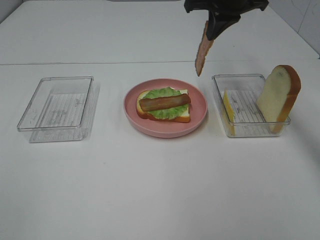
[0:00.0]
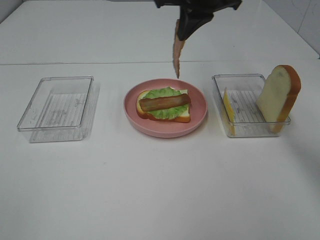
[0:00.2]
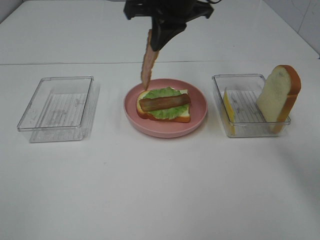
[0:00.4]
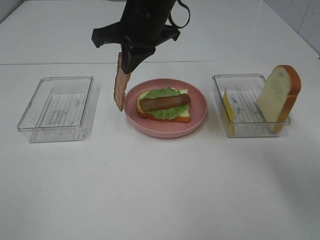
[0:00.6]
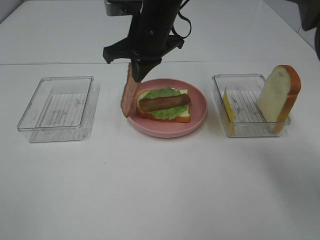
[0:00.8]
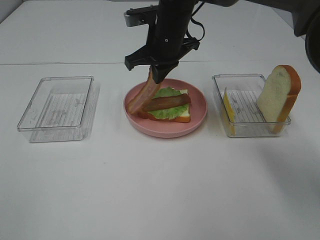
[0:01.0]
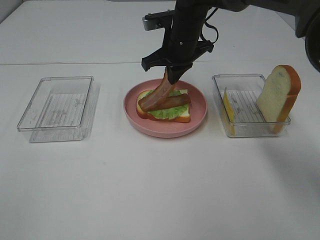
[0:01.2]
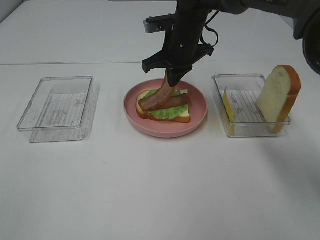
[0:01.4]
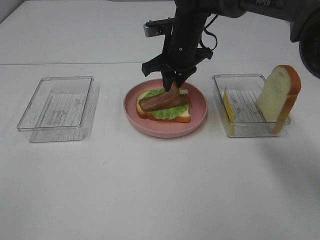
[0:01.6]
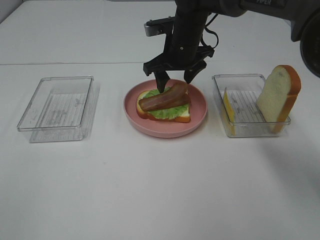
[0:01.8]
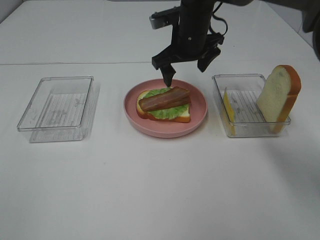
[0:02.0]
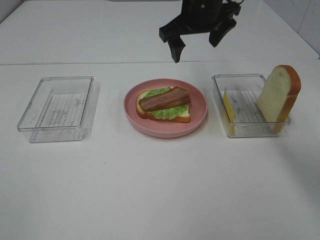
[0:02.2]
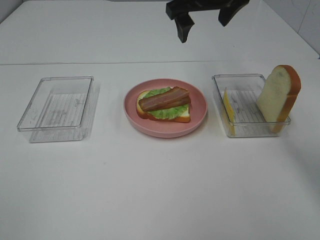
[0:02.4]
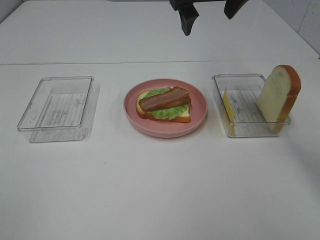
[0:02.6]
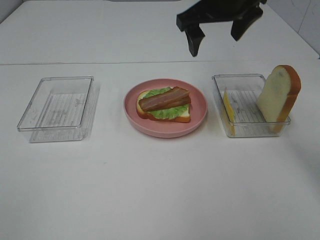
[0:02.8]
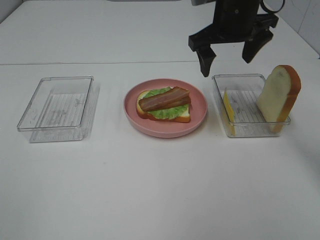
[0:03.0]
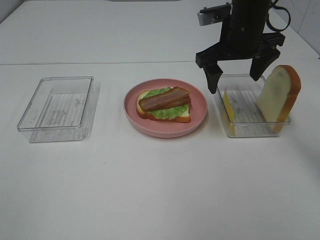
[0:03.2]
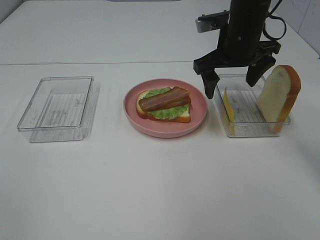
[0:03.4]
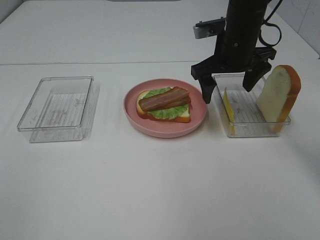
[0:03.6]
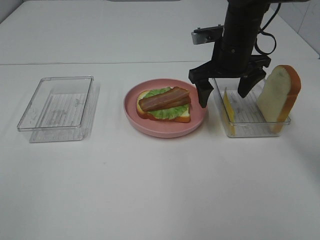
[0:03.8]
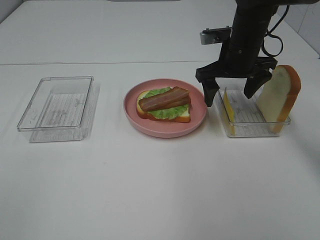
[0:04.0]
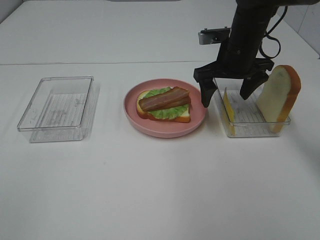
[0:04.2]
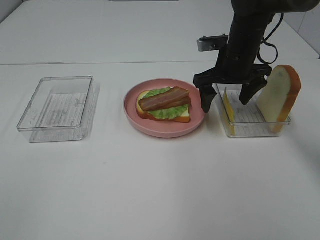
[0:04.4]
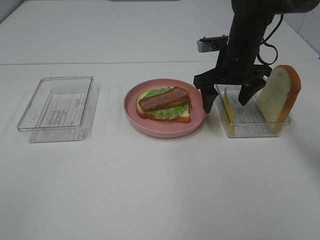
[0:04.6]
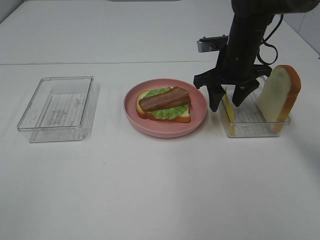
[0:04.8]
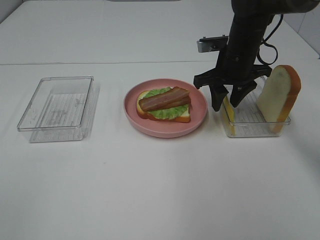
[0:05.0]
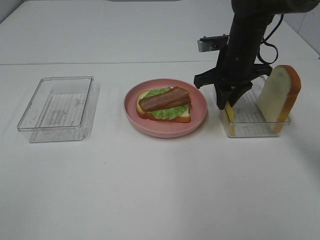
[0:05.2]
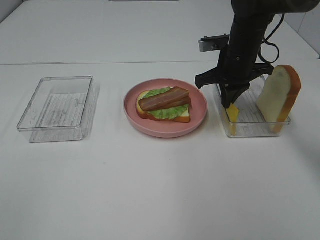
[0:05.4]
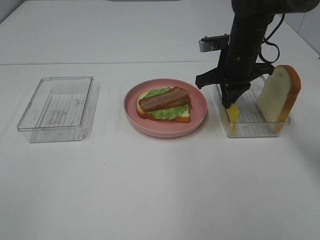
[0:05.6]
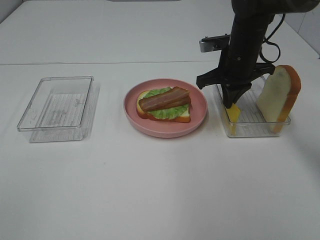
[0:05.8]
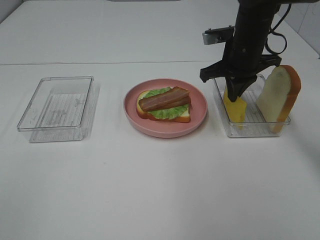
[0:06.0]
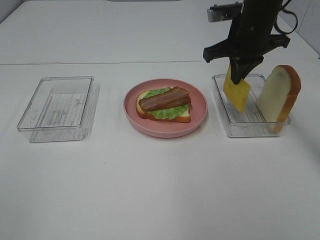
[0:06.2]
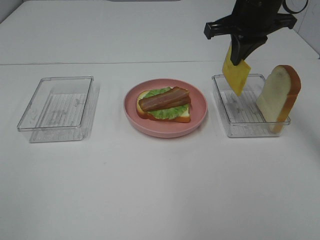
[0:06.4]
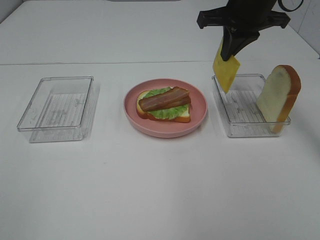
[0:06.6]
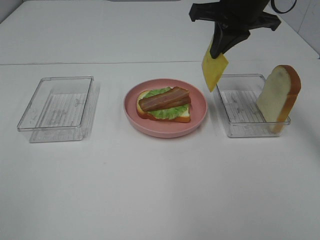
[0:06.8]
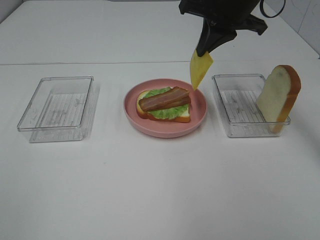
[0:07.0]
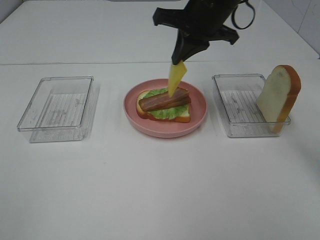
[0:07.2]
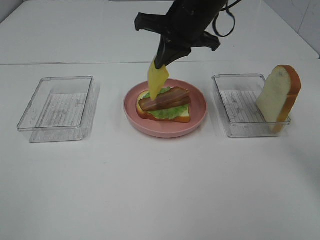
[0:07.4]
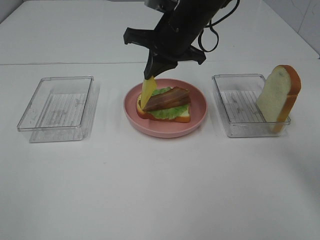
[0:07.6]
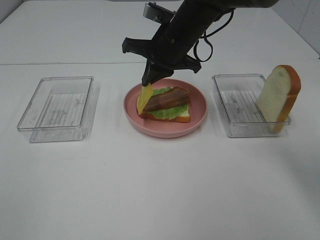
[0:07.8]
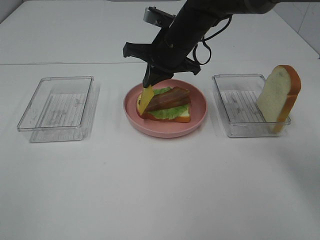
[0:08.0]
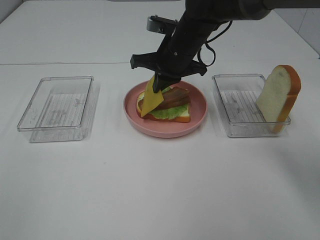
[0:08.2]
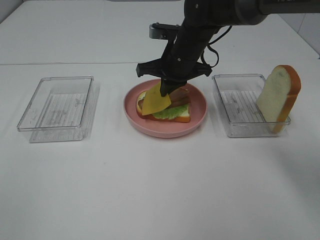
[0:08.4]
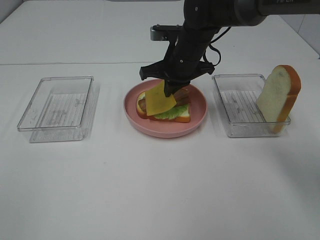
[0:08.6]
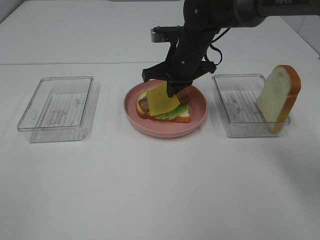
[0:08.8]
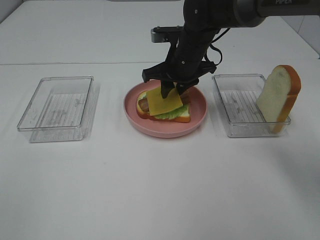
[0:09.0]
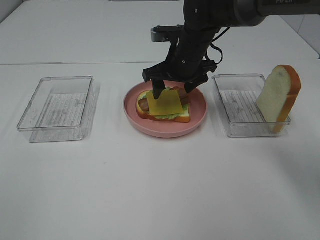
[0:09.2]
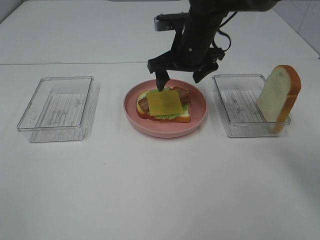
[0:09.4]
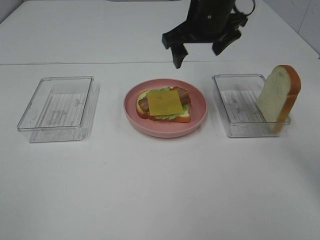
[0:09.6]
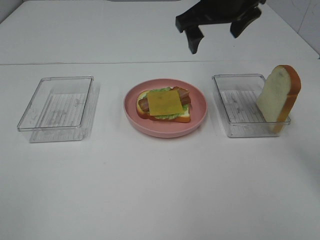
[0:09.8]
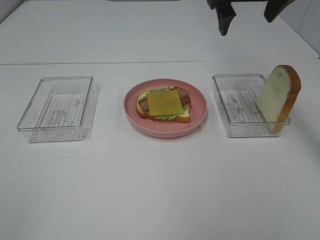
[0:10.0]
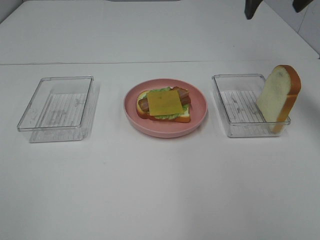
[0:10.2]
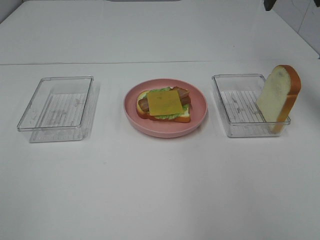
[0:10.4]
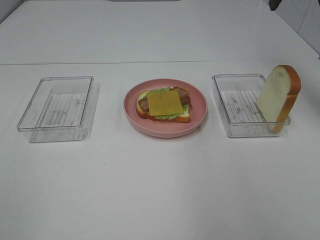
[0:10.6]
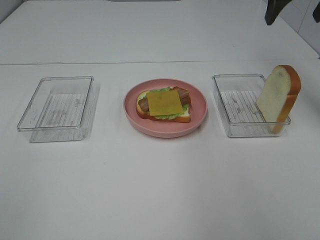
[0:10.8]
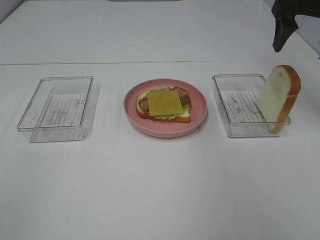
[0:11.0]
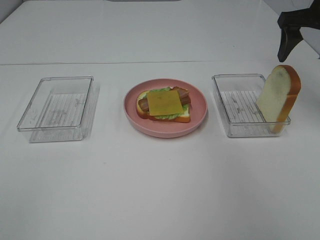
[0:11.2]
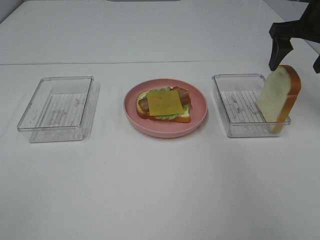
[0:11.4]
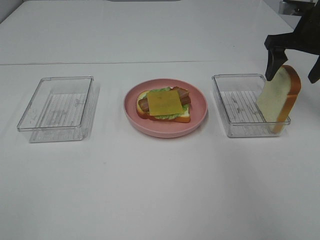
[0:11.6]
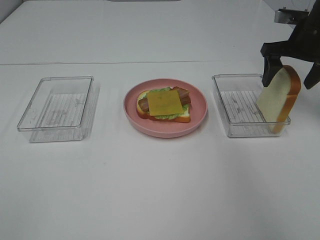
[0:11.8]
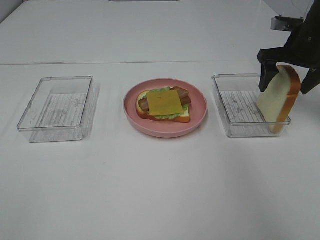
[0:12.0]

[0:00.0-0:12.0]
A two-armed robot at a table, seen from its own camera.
Task of the whole recording: Make sandwiches.
Step, 0:00.0 to 0:02.0: Right hand:place bacon on bacon.
Step, 0:02.2 to 0:05.8: Right hand:grab the cheese slice.
Step, 0:06.0 to 0:09.2: Right hand:place the cheese slice on top of the bacon.
0:00.0 to 0:01.6: The right gripper shifts roughly 15 cm downward and to the left, and opens.
0:01.6 to 0:03.0: The right gripper goes some 10 cm upward and to the right, and opens its fingers.
0:03.0 to 0:04.4: The right gripper is displaced downward by roughly 10 cm.
0:04.4 to 0:06.0: The right gripper closes up.
0:06.0 to 0:07.6: The right gripper shifts approximately 10 cm to the left.
0:07.6 to 0:09.0: The right gripper travels downward by approximately 5 cm, and opens.
0:09.0 to 0:10.4: The right gripper goes roughly 25 cm upward and to the right, and opens its fingers.
0:10.4 to 0:12.0: The right gripper heads downward, covering some 15 cm.

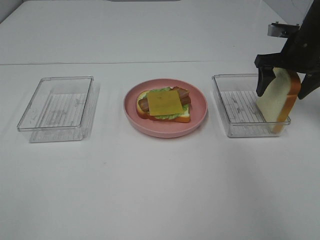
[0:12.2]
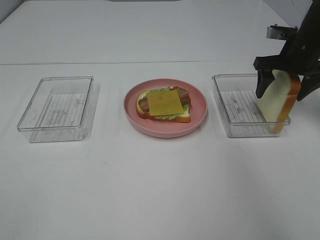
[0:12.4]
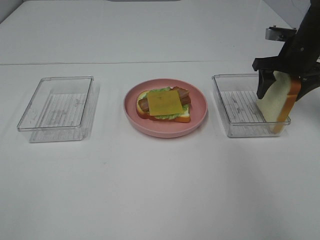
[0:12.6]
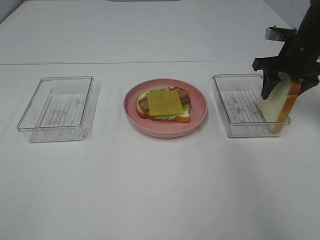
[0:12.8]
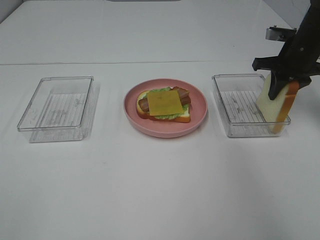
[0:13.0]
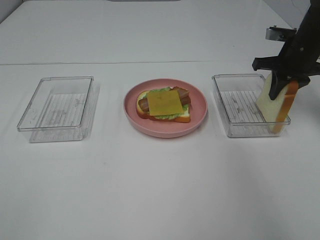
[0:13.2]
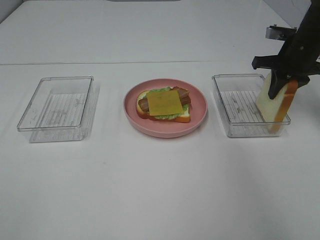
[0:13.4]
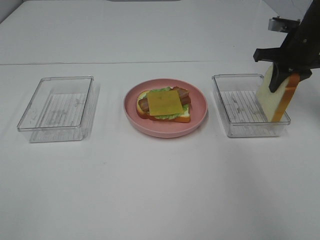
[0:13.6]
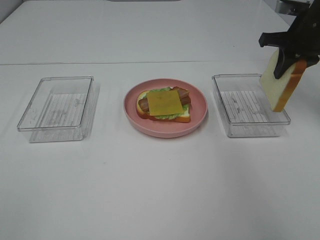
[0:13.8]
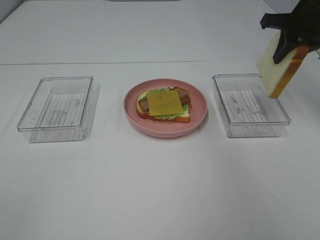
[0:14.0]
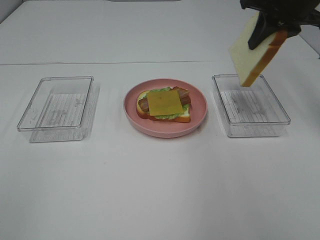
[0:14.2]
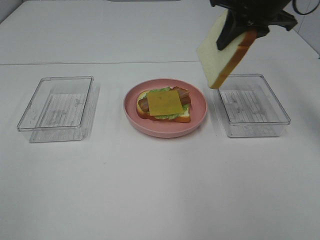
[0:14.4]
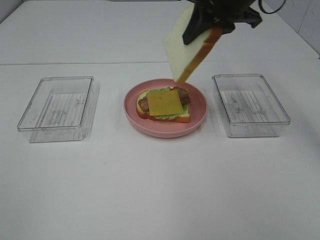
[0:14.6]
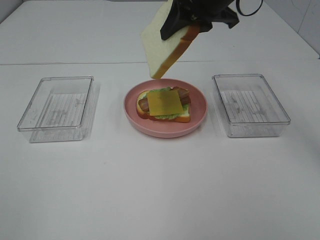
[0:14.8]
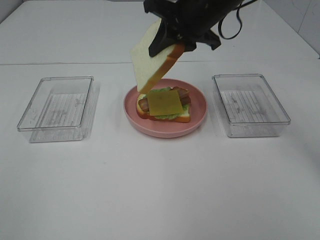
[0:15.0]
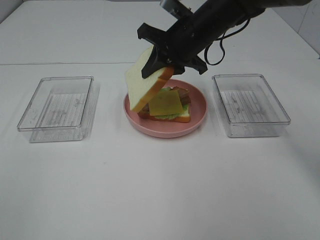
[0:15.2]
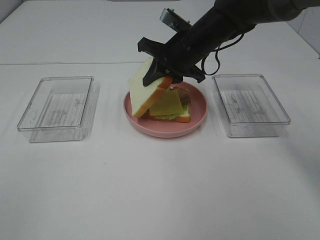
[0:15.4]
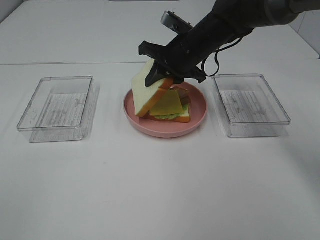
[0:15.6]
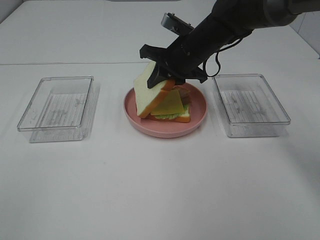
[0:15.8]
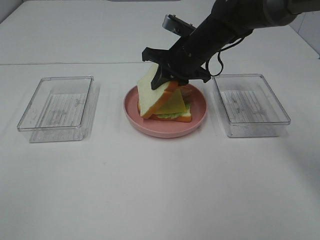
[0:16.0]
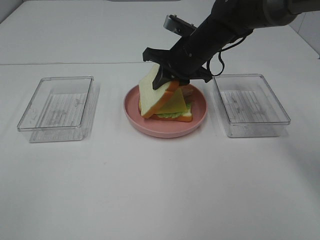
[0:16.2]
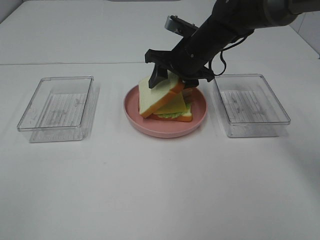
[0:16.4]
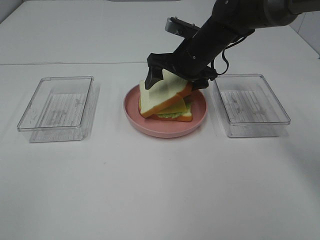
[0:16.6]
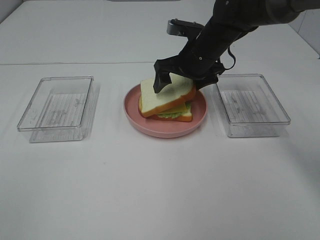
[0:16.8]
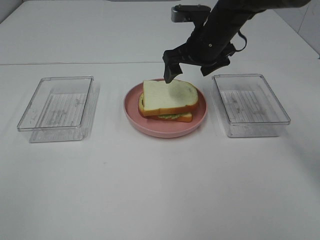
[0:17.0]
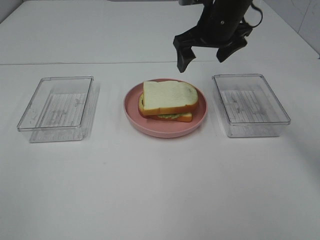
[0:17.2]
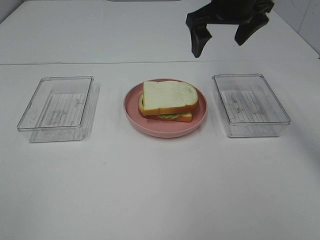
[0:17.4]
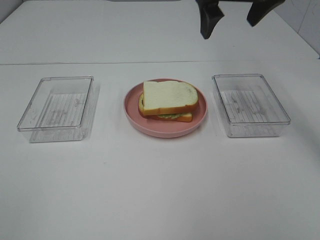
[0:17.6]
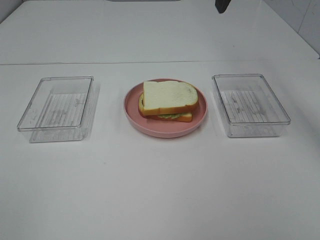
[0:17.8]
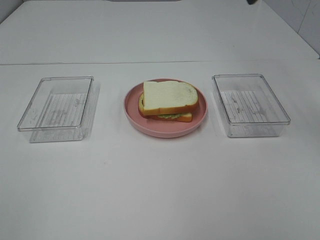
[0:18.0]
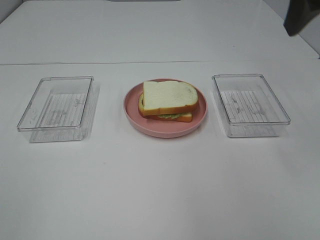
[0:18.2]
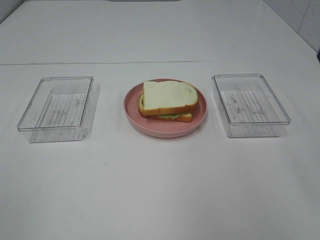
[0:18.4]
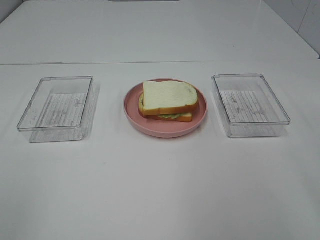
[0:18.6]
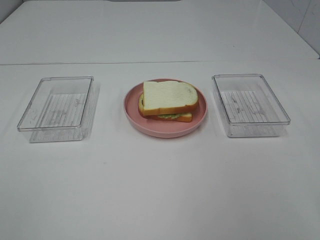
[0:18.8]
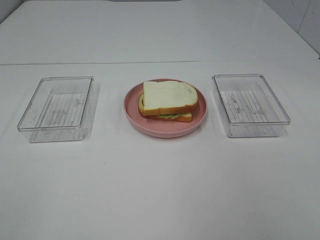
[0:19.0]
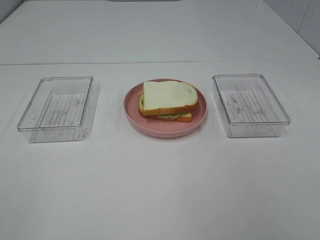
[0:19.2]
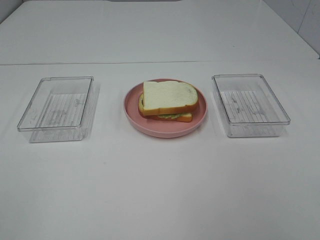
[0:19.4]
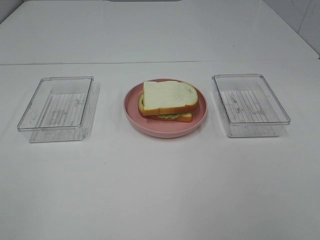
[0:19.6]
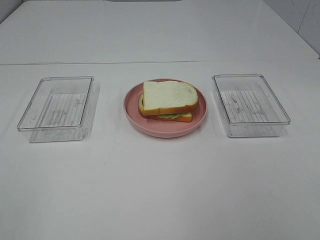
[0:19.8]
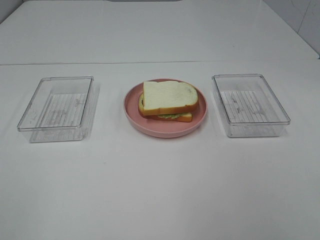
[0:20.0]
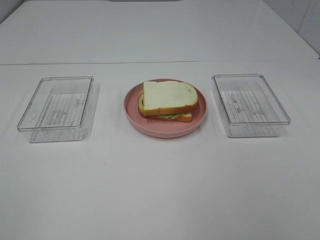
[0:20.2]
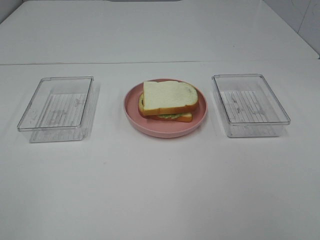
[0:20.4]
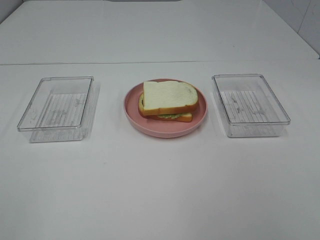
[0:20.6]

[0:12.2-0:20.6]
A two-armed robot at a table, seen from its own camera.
Task of the whole recording: Make sandwiches.
Step, 0:13.6 to 0:16.8: Right hand:place the bread slice on the cheese slice.
0:12.2 to 0:13.6: The right gripper closes up.
0:13.6 to 0:15.0: The right gripper is displaced to the left by roughly 20 cm.
0:15.0 to 0:16.4: The right gripper shifts approximately 10 cm downward, and opens up.
0:16.4 to 0:17.8: The right gripper is displaced upward by some 20 cm.
0:17.8 to 0:19.2: The right gripper shifts some 35 cm backward and to the right.

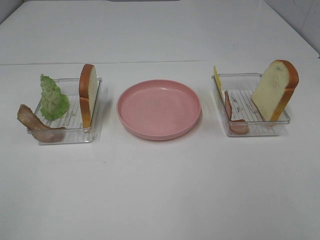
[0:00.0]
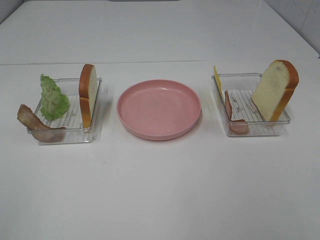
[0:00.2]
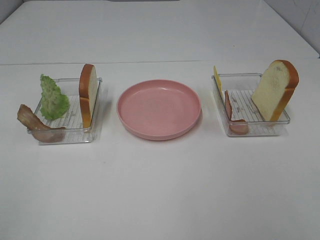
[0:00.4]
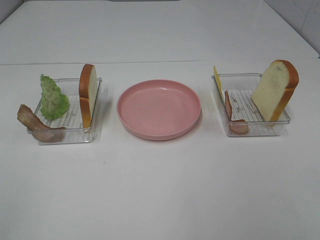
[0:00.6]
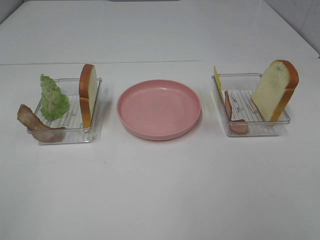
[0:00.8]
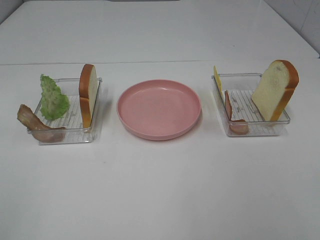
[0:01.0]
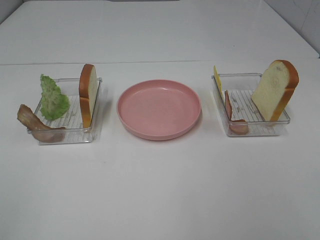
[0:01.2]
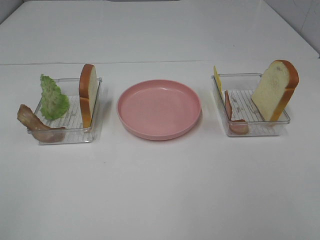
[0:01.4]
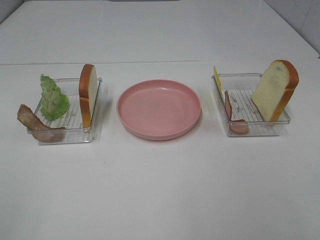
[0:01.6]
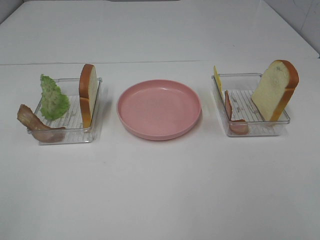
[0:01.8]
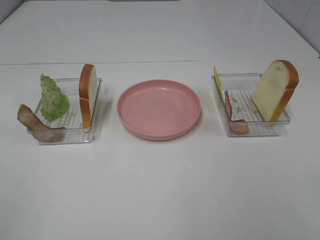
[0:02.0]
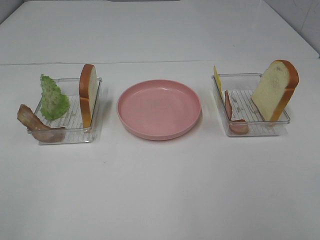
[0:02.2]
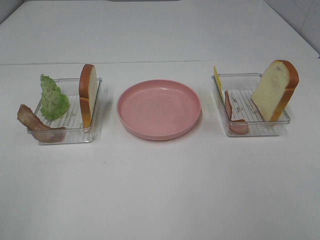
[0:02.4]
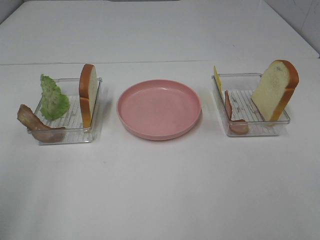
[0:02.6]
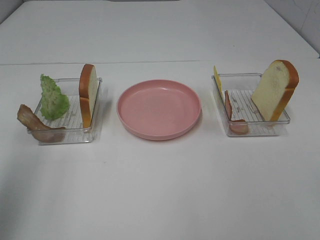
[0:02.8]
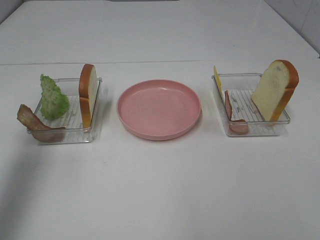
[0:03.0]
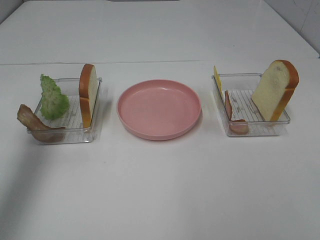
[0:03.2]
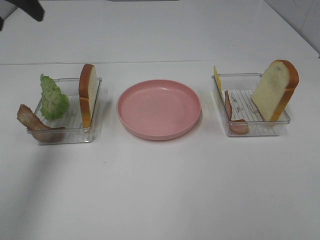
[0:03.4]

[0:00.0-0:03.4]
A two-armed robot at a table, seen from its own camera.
Task of the whole recording: Make sandwiches.
0:00.0 to 0:01.6: Both grippers stay put.
0:01.6 to 0:03.4: The left gripper heads forward, covering approximately 35 cm.
